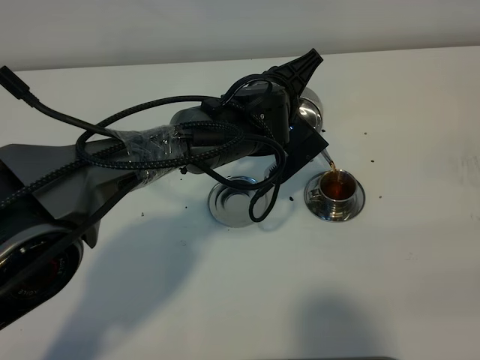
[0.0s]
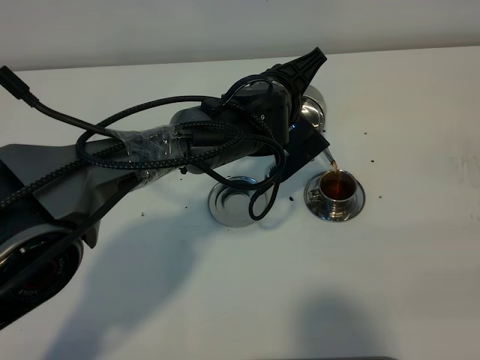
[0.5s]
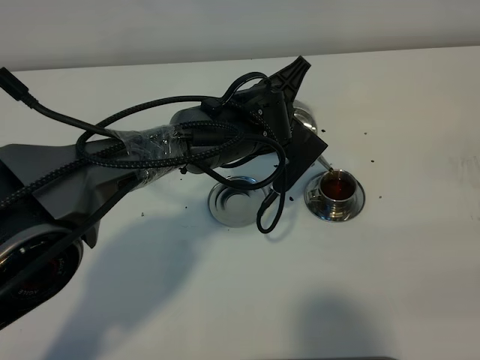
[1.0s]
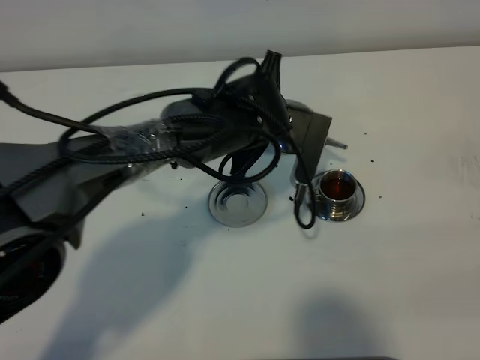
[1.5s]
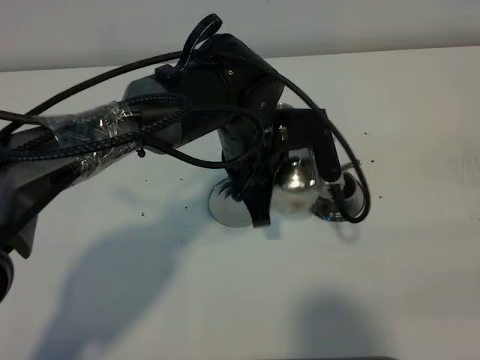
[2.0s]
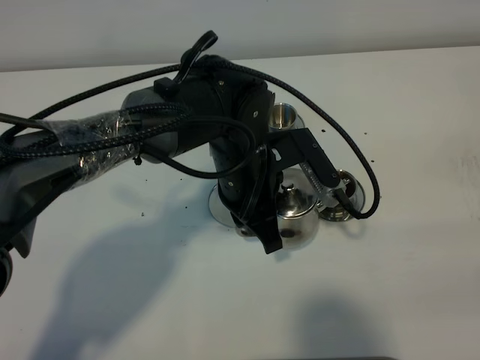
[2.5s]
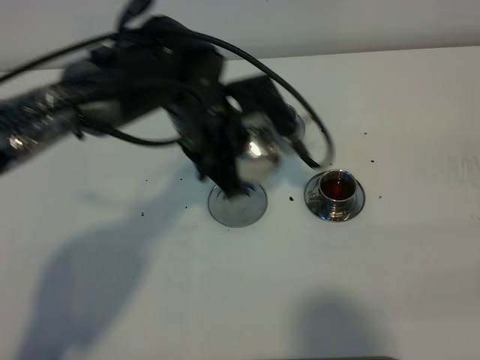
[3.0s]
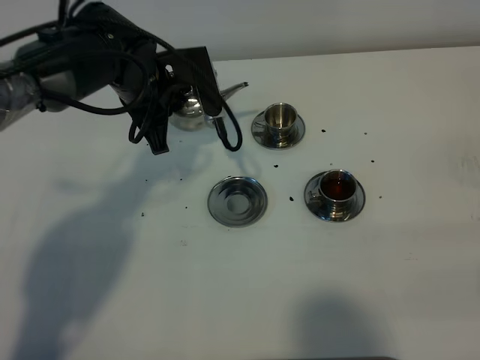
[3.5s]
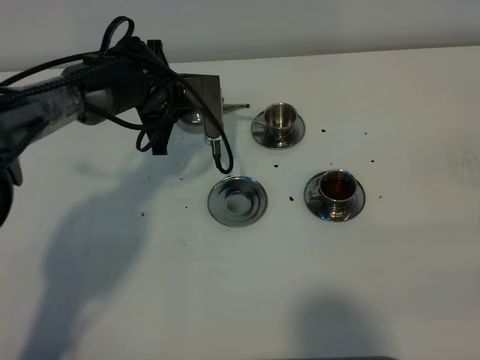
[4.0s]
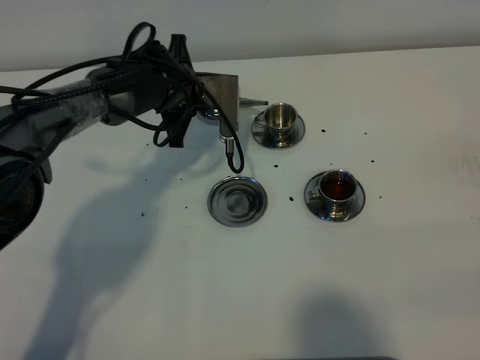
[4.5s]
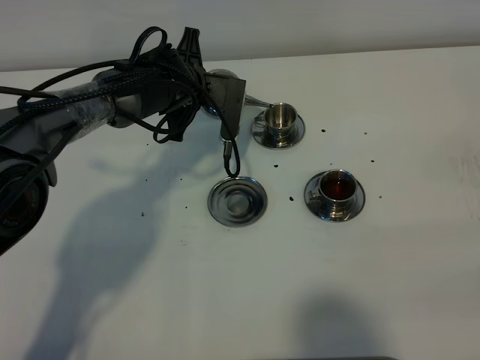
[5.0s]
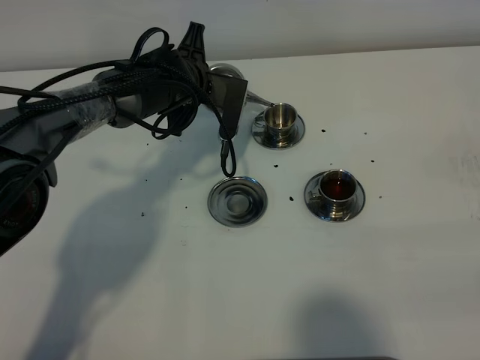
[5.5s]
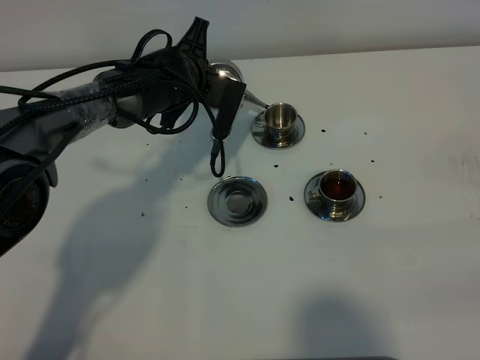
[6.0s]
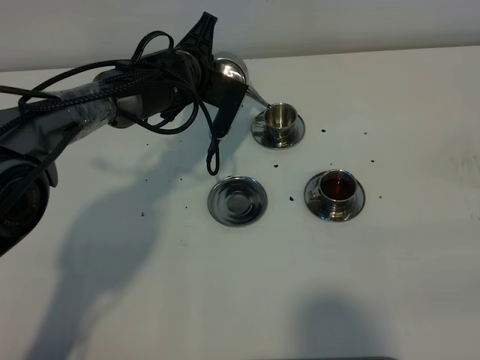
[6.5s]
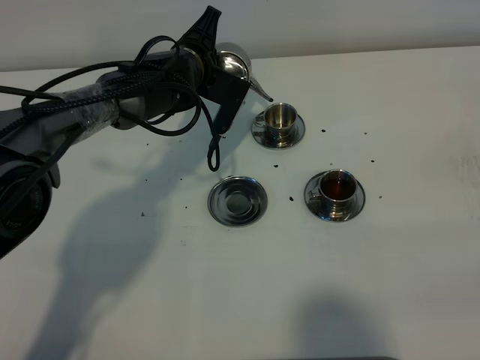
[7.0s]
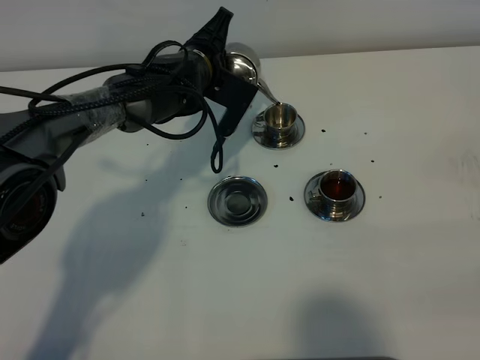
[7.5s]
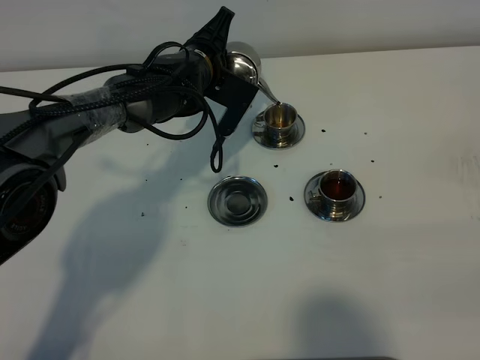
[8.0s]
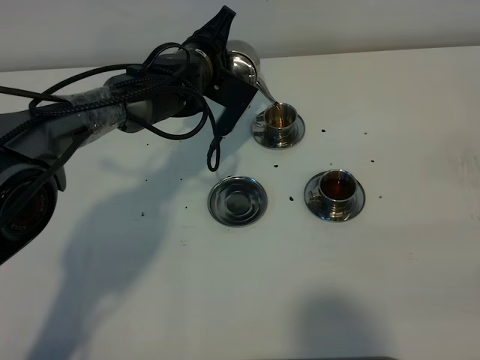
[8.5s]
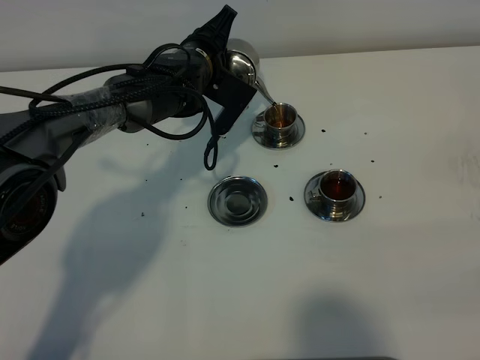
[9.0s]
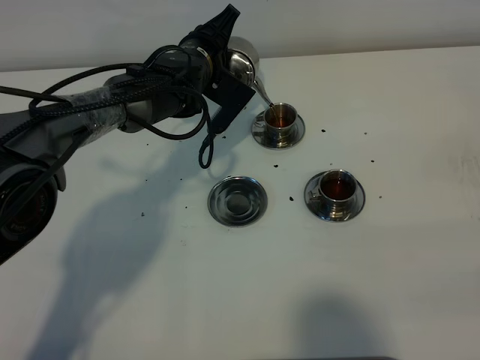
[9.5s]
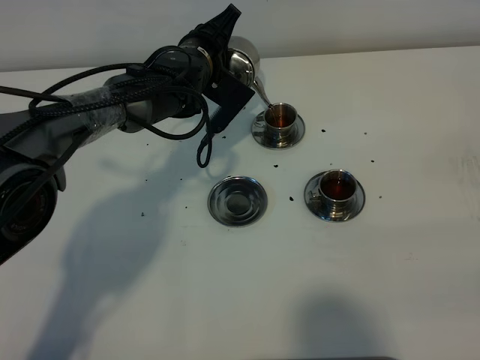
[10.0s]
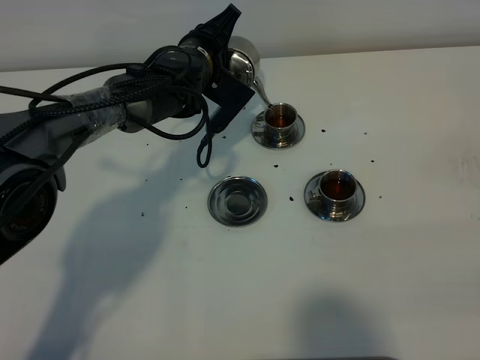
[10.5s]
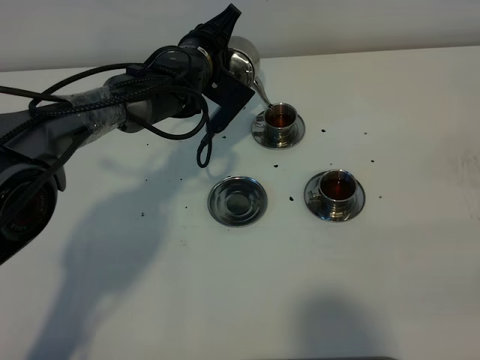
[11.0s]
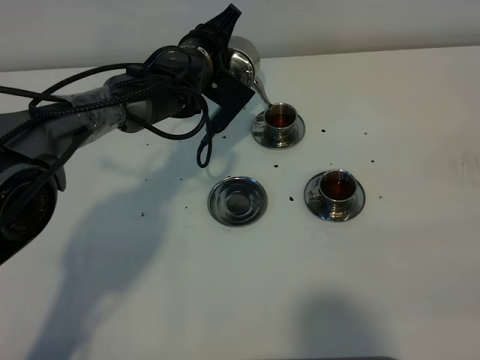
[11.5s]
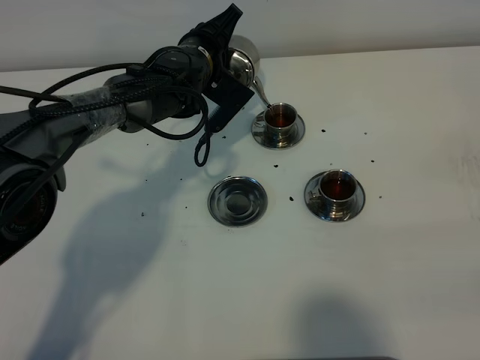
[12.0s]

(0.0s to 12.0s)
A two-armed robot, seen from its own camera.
Task of the whole recording: grasp the stainless steel teapot and pour the tea into the two stainless steel teacups one by one, put the stainless steel teapot back in its original place.
0.0s - 2.0s: The left gripper shifts approximately 5 cm backward.
2.0s - 4.0s: The left gripper moves forward and to the left, some 20 cm.
6.0s - 8.0s: The grippers make only small movements.
8.0s - 10.0s: There are only small adjustments of the grippers.
10.0s - 12.0s: Both grippers stay about where they are.

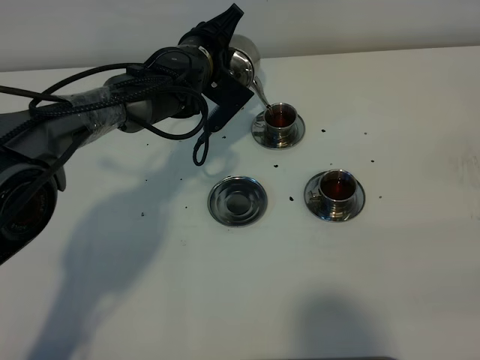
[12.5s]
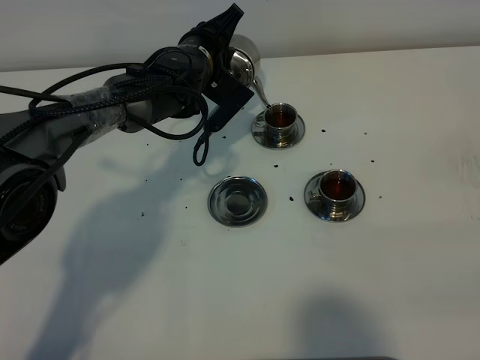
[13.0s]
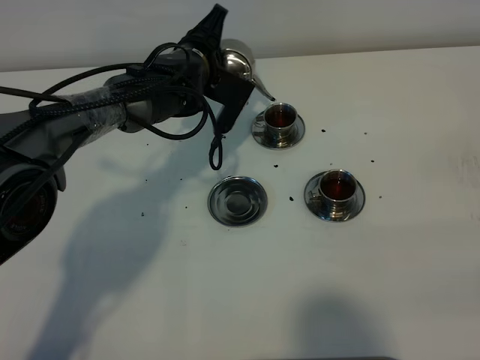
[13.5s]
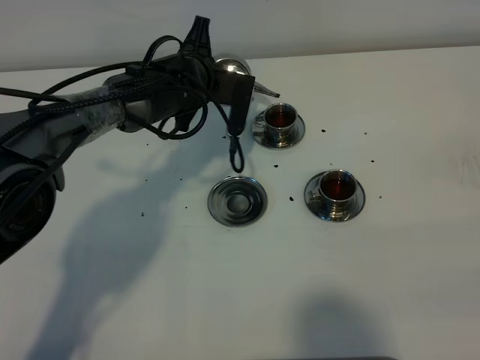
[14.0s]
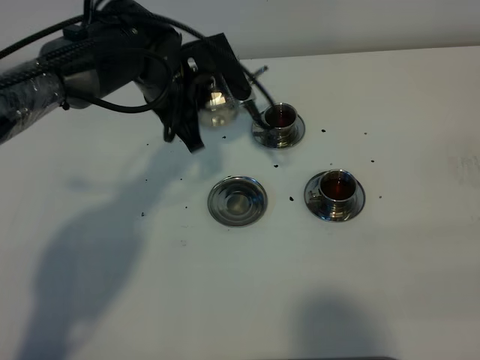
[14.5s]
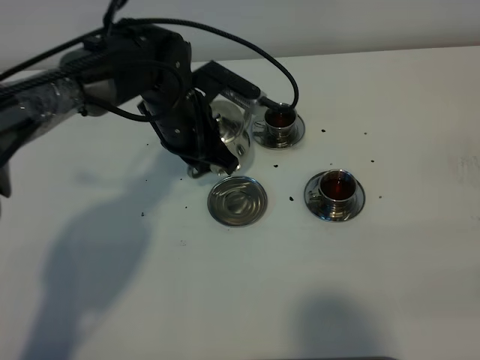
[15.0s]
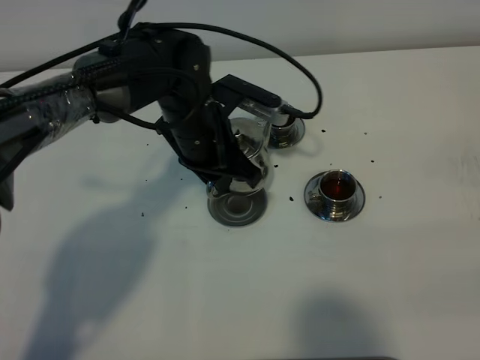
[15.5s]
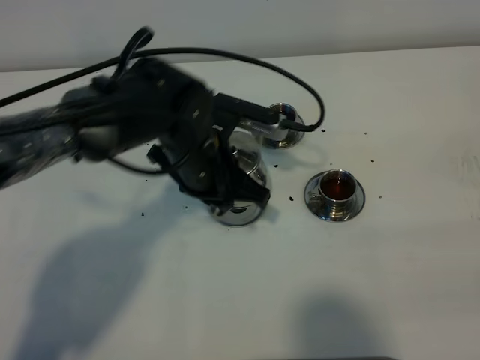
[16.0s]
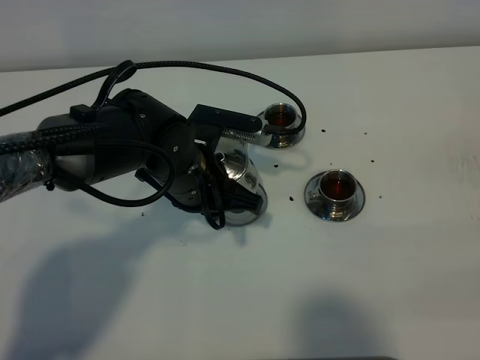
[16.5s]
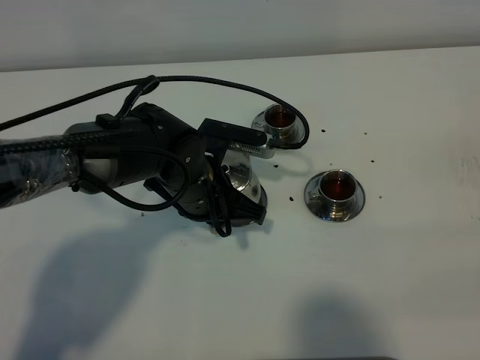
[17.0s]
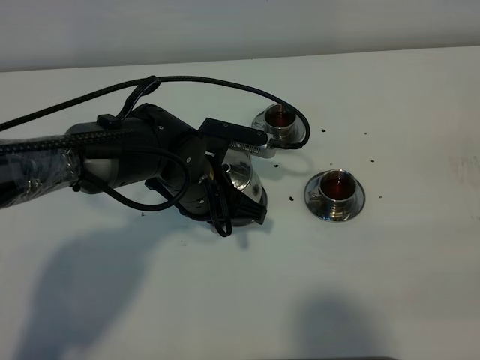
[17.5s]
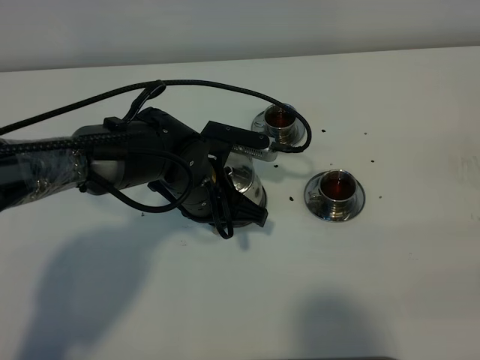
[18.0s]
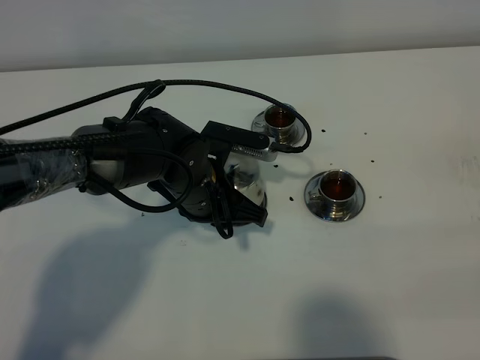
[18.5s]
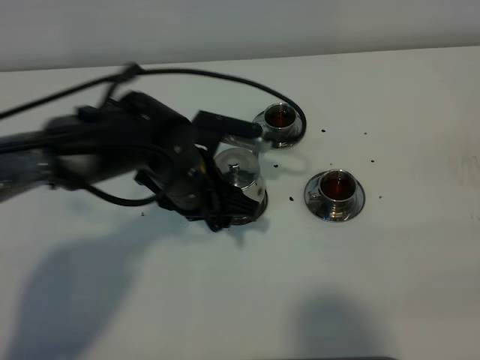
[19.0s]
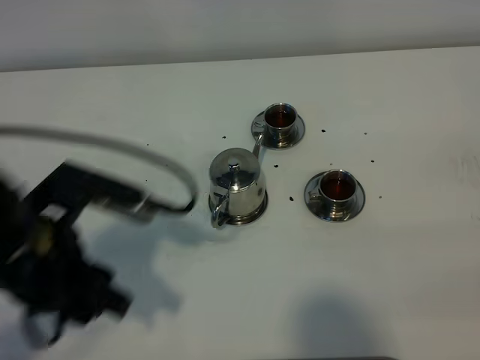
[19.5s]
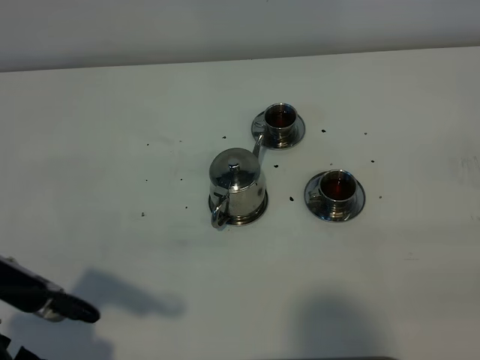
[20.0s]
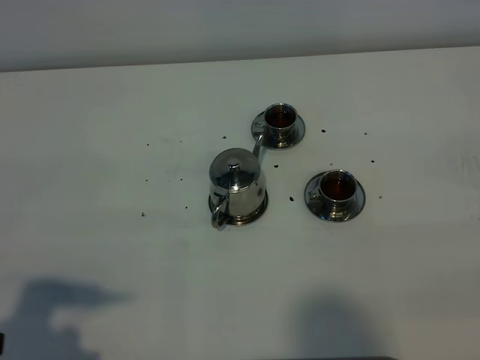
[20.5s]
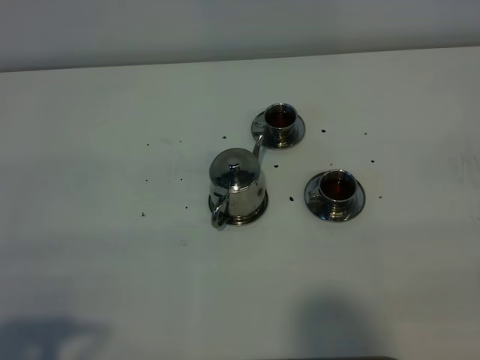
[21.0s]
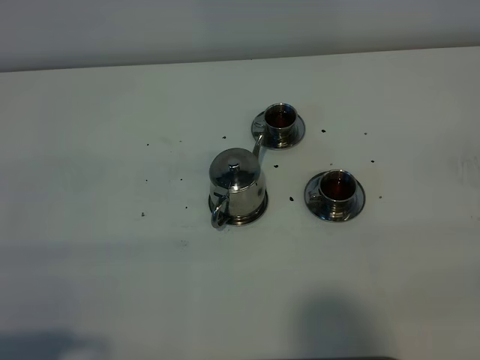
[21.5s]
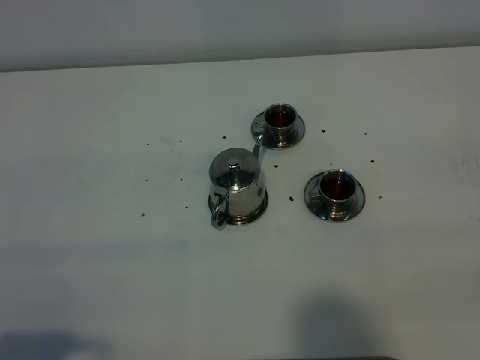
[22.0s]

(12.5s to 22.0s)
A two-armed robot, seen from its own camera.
Task of the whole recording: grasp the stainless steel teapot and pour the tea into the two stainless steel teacups one by one, put the stainless steel teapot back in its original place.
12.5s - 14.5s: The left gripper shifts some 5 cm backward.
14.5s - 16.5s: The left gripper is displaced backward by approximately 10 cm.
16.5s - 18.0s: The grippers move only a little.
18.0s - 20.0s: The left gripper moves backward, to the left and upward, some 30 cm, and opens its fingers.
20.0s - 22.0s: The left gripper goes about 10 cm backward.
